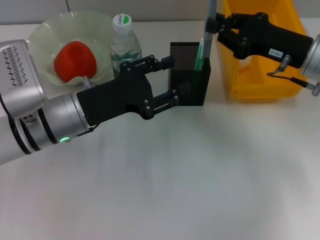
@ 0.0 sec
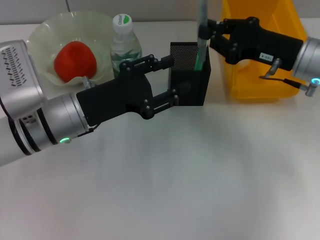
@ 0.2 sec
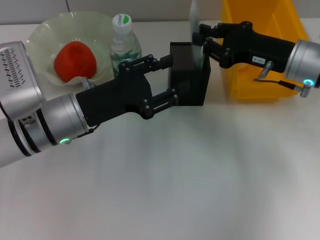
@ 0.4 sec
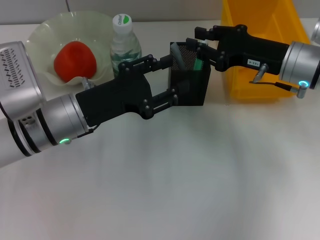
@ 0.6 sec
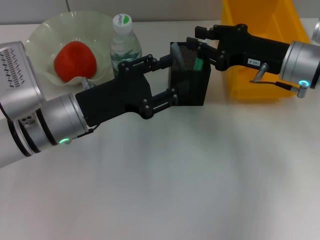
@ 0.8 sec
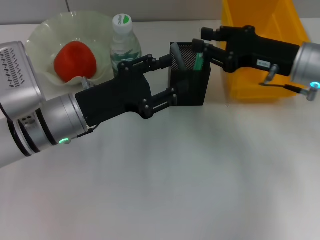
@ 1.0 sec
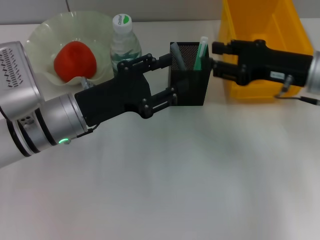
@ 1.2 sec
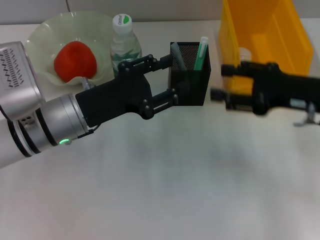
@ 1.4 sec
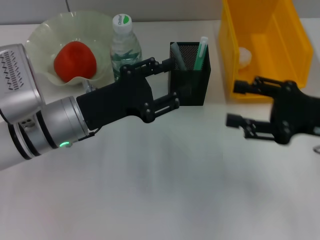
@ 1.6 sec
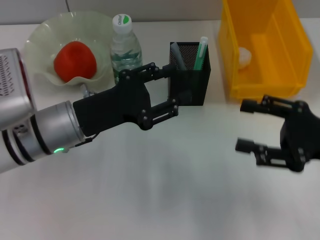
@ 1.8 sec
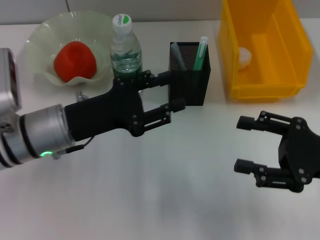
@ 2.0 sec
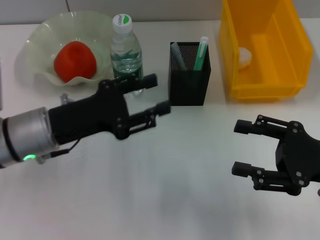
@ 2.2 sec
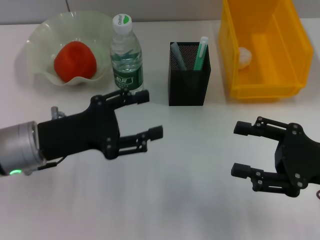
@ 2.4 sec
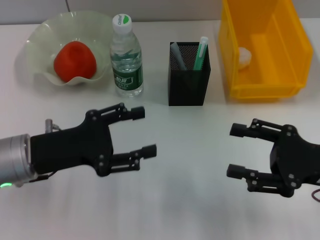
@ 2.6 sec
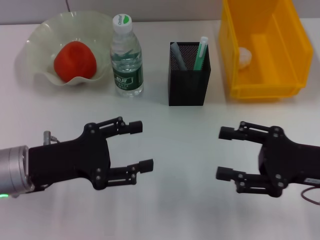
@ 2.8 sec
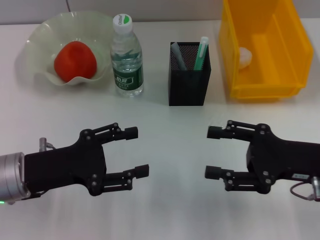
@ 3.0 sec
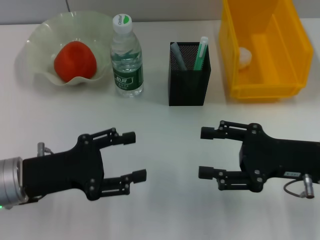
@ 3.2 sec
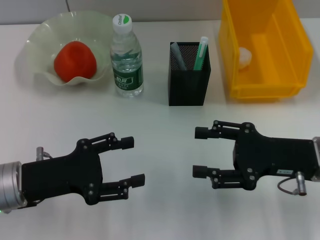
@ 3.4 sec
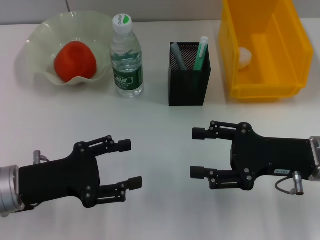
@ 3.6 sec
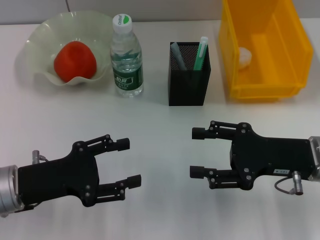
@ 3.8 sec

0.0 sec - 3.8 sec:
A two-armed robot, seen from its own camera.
0.0 sec - 1.2 sec: The right gripper opens.
1.2 sec - 2.6 sec: The left gripper is displaced to the left by about 5 cm; the right gripper goes about 10 cm backward, and opens up.
2.6 sec - 3.8 sec: The right gripper shifts by approximately 5 cm.
